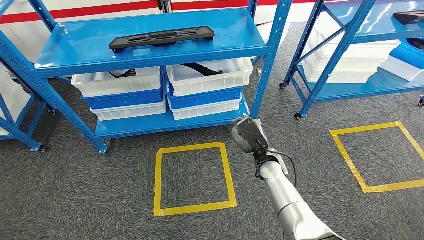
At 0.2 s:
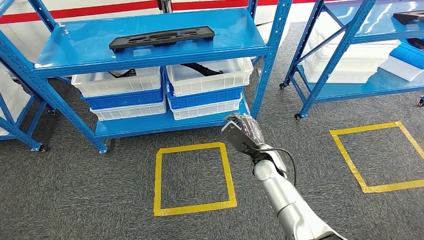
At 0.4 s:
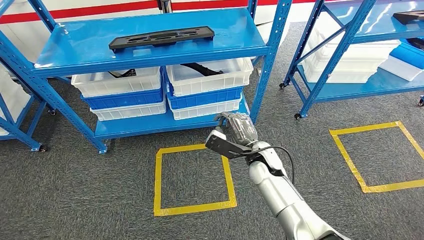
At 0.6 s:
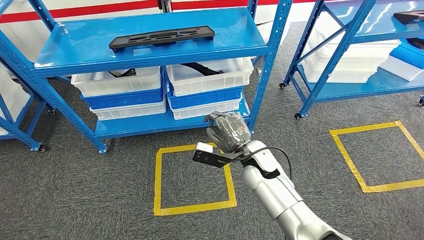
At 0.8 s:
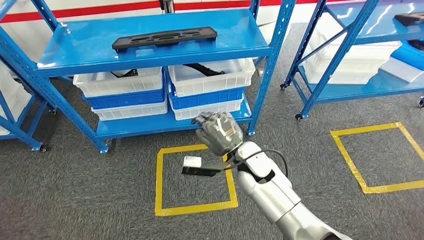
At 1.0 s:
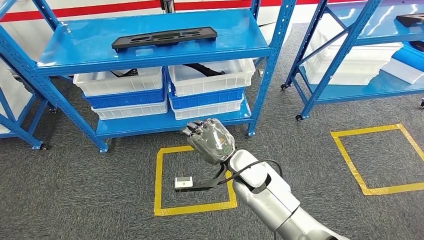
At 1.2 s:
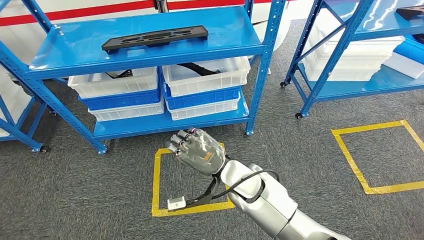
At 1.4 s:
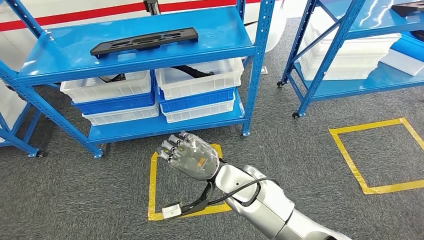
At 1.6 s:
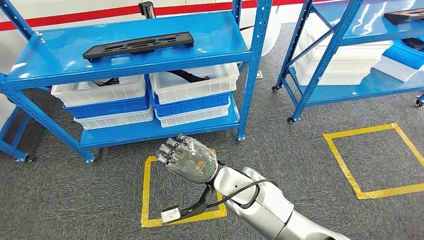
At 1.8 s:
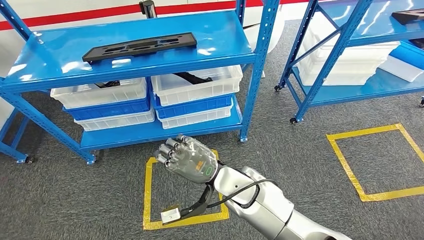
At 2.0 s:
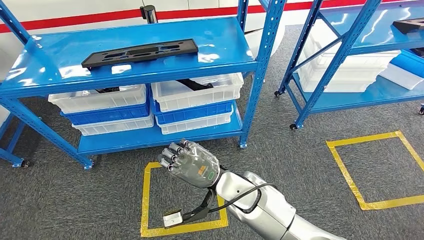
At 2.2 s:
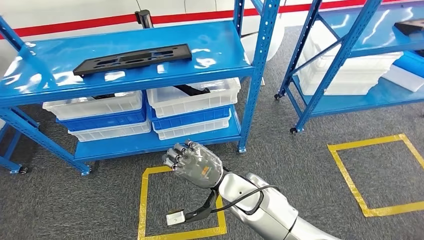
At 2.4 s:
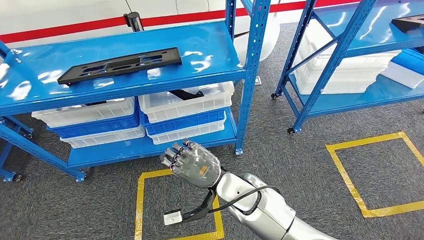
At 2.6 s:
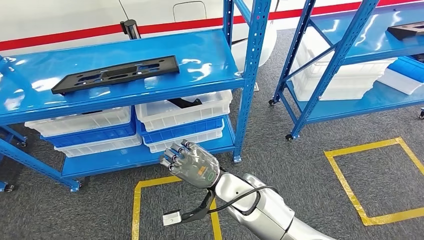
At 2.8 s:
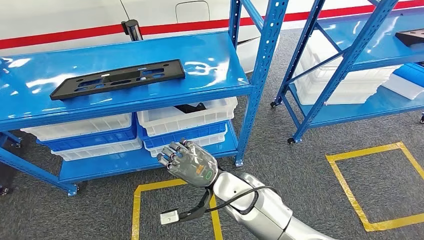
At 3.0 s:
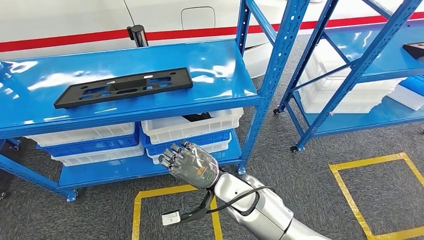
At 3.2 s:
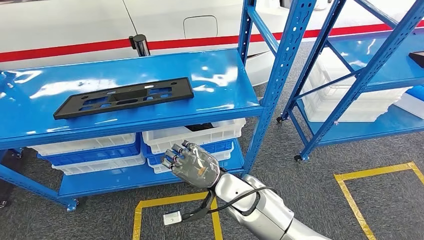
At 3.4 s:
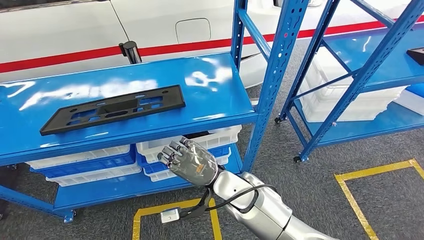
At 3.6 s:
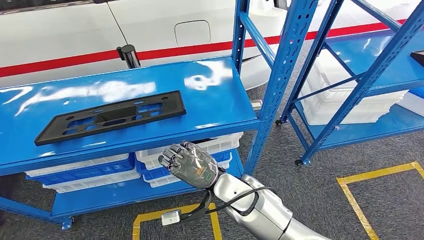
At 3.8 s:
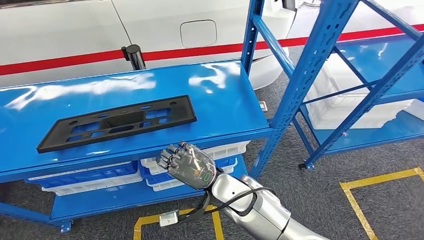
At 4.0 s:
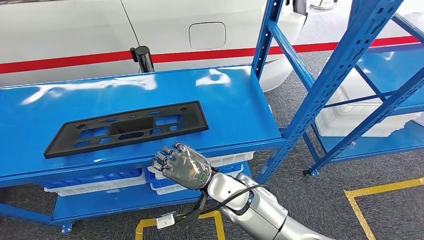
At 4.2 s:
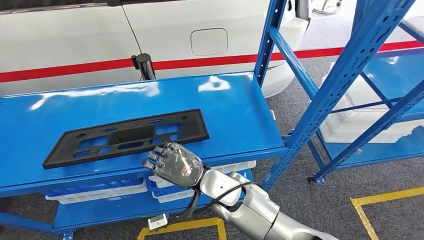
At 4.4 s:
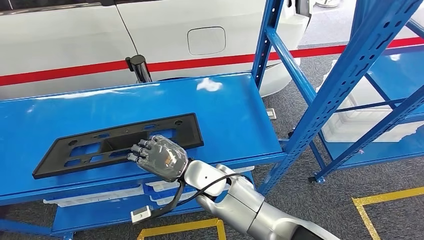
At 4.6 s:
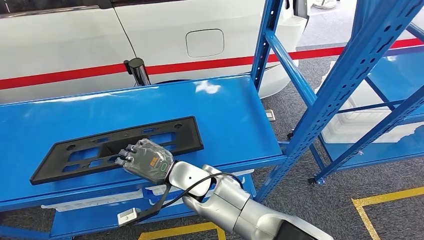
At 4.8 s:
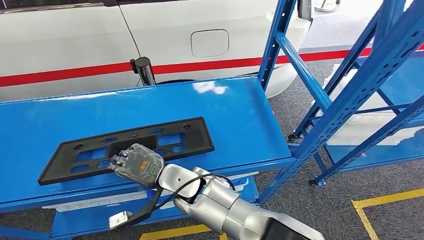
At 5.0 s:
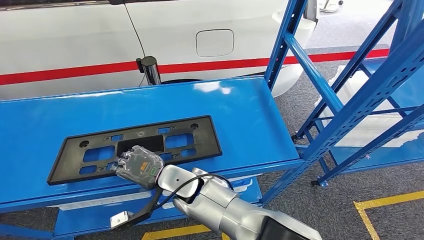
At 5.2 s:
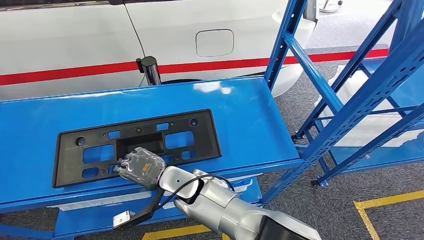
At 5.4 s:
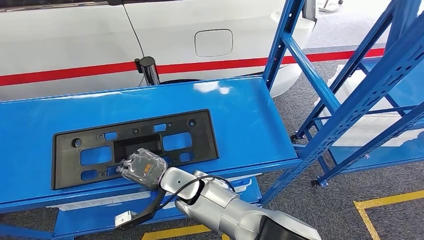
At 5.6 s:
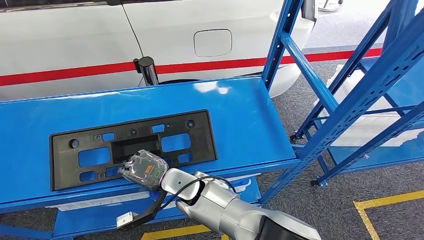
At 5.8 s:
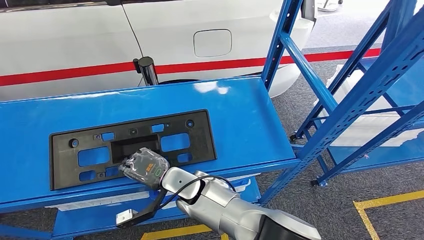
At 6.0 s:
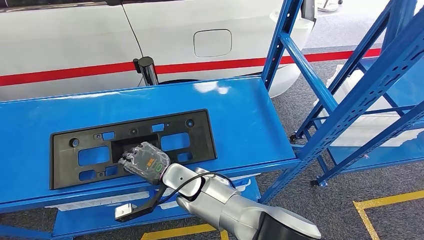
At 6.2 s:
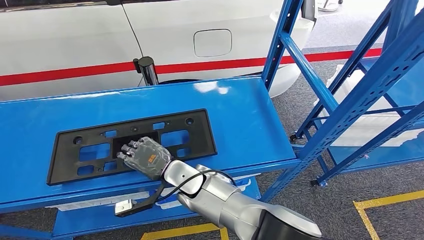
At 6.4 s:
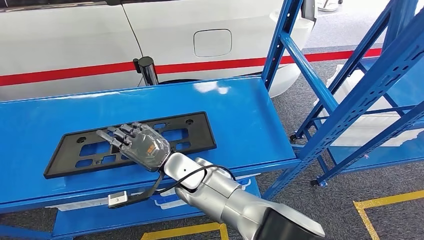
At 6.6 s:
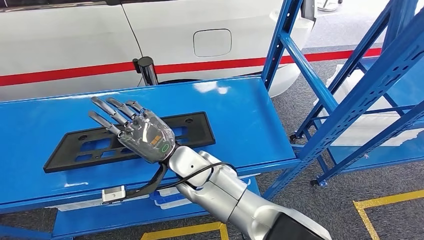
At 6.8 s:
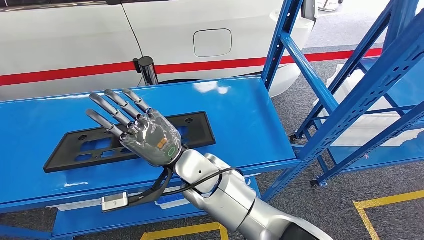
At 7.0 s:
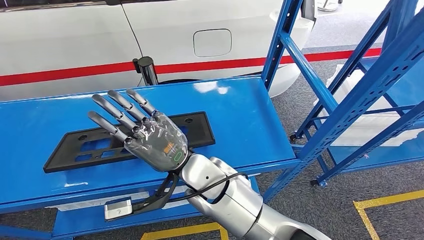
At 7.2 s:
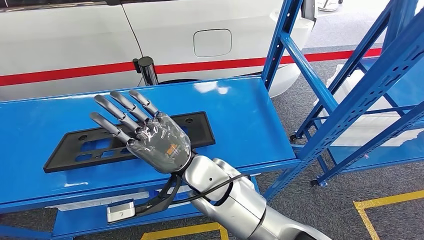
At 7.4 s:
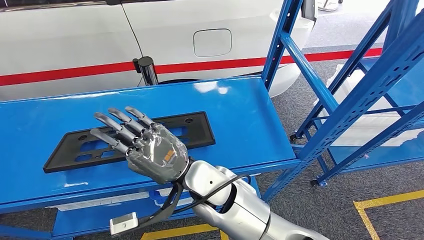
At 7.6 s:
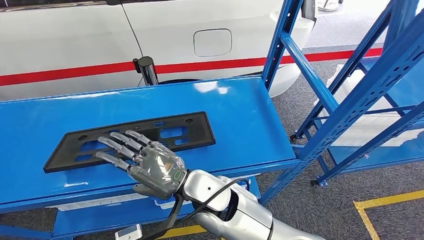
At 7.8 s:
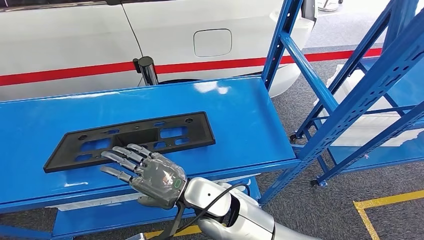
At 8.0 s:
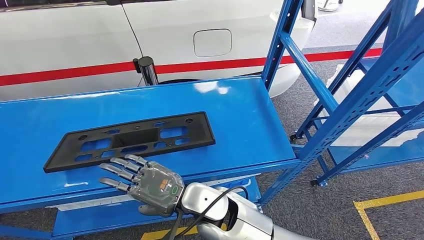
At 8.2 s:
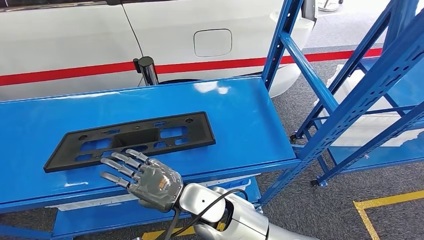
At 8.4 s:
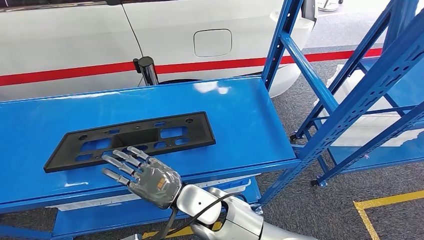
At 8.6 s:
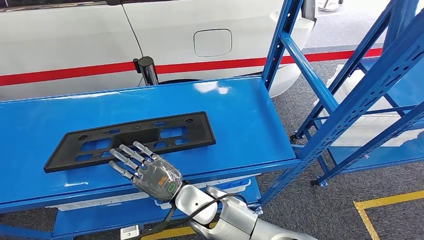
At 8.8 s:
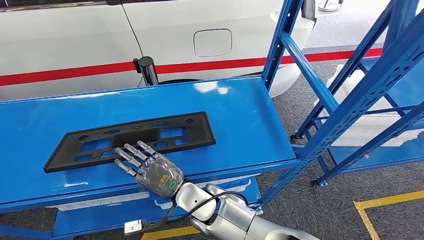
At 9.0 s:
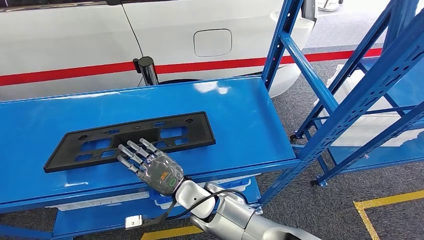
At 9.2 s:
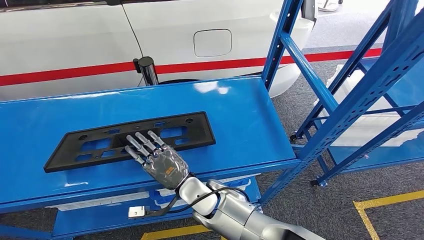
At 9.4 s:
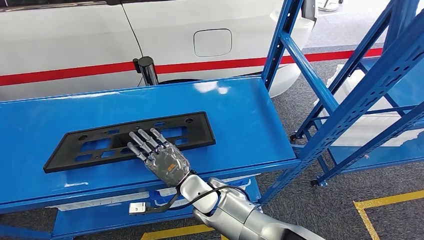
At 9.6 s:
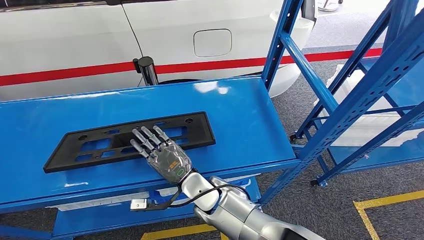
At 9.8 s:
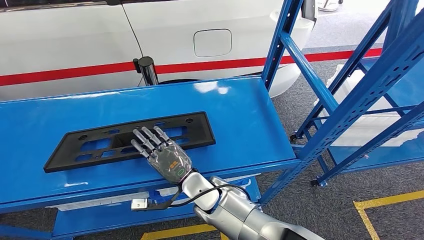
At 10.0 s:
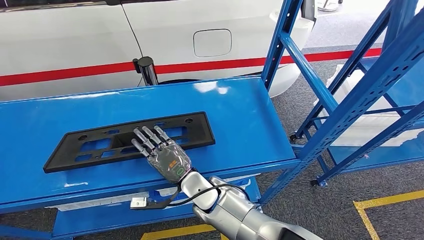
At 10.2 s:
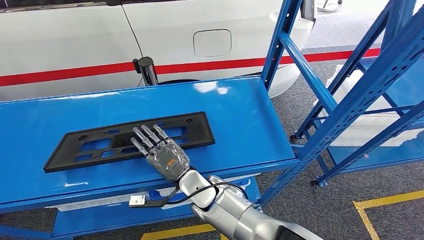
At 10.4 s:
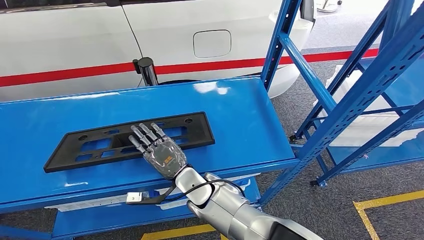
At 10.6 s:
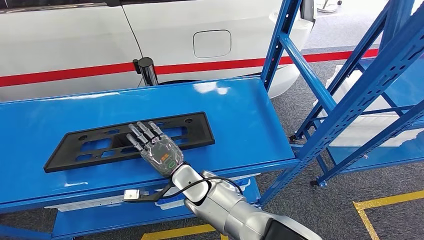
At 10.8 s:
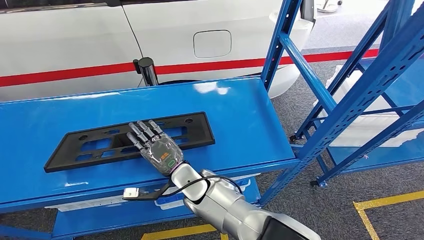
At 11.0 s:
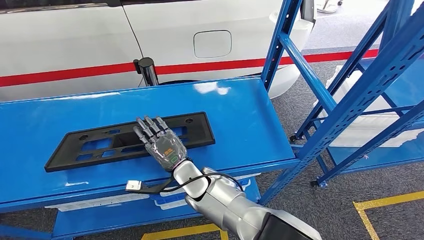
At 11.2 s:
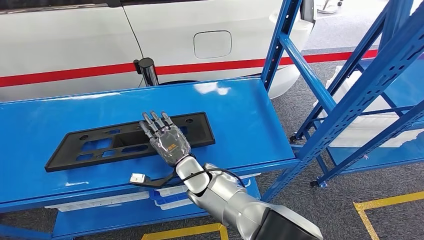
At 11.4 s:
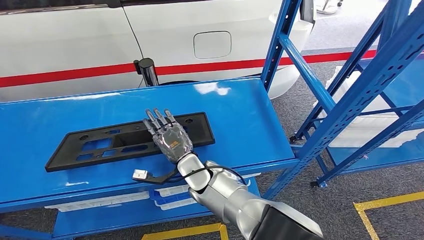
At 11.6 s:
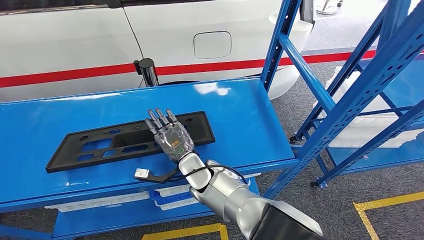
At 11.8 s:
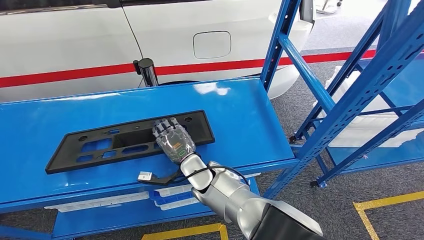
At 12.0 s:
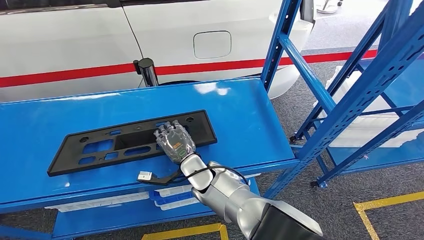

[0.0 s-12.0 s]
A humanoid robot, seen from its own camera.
6.0 to 7.6 s: The right hand is displaced upward, backward and to the right by some 10 cm.
7.6 to 9.0 s: The right hand heads downward, covering some 10 cm.
9.0 to 10.4 s: The hands stay close to where they were, moving slightly.
10.4 to 12.0 s: The hands make only small movements.

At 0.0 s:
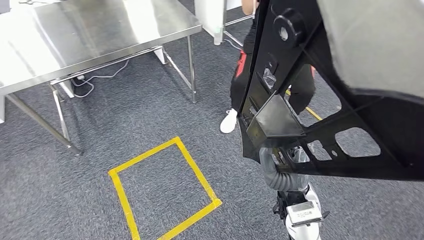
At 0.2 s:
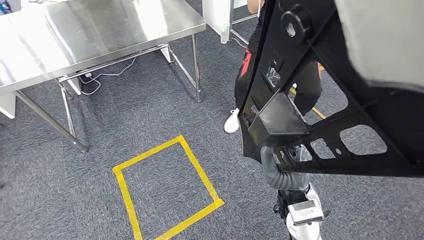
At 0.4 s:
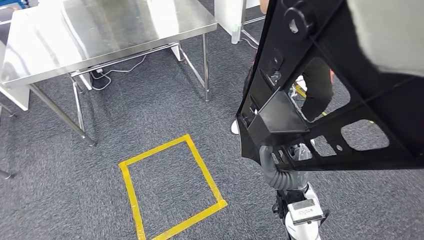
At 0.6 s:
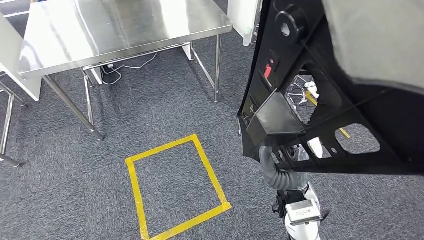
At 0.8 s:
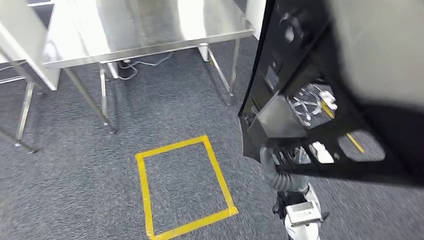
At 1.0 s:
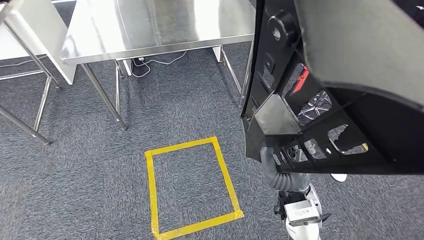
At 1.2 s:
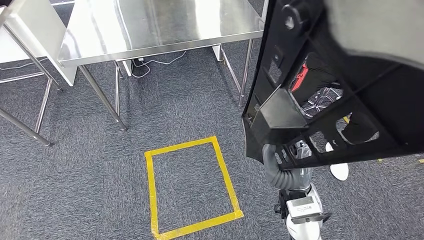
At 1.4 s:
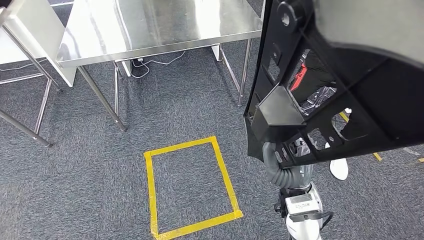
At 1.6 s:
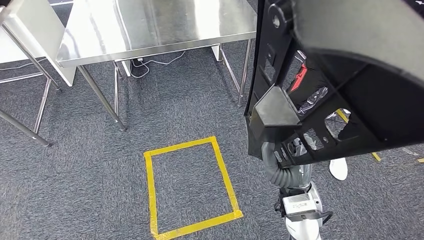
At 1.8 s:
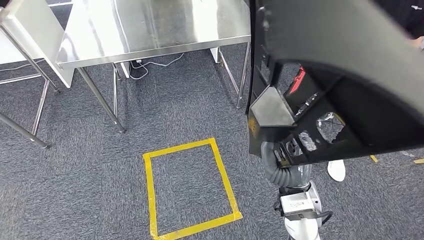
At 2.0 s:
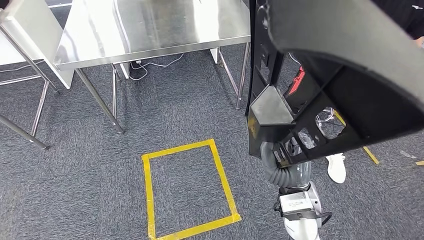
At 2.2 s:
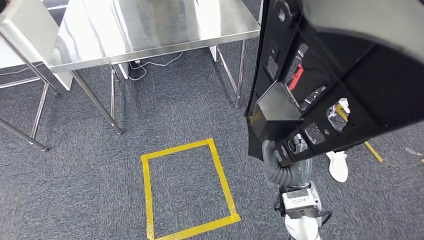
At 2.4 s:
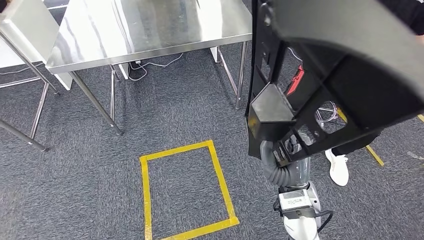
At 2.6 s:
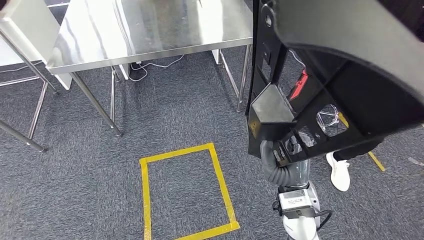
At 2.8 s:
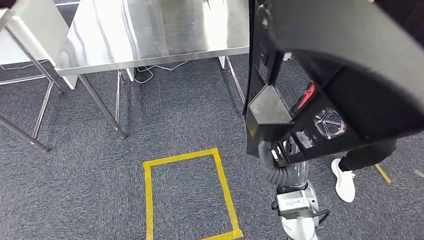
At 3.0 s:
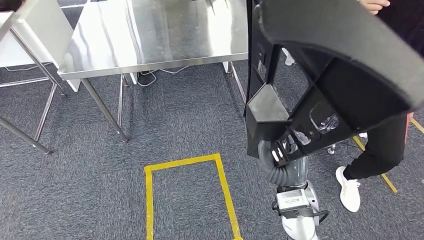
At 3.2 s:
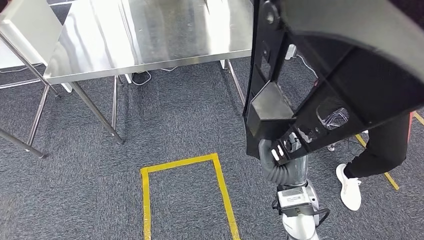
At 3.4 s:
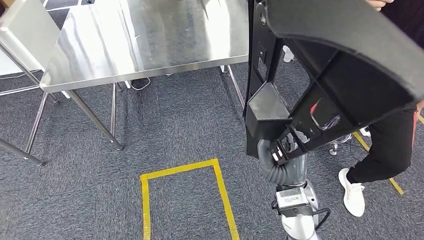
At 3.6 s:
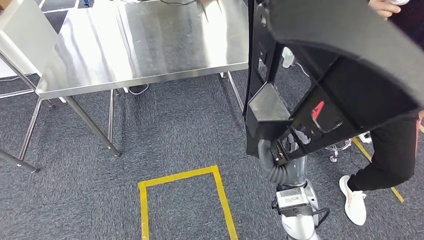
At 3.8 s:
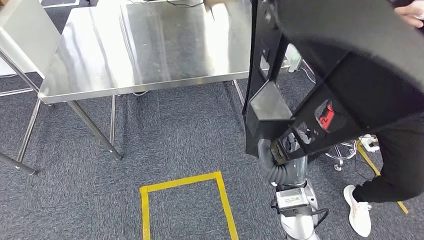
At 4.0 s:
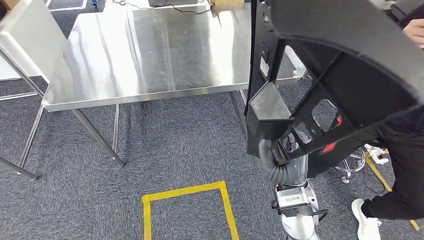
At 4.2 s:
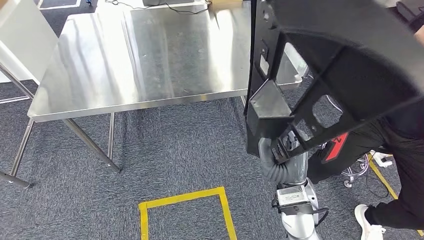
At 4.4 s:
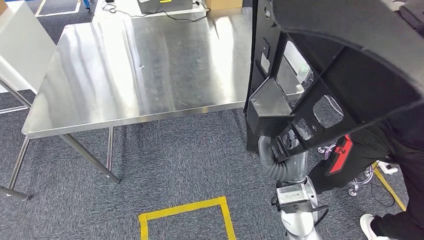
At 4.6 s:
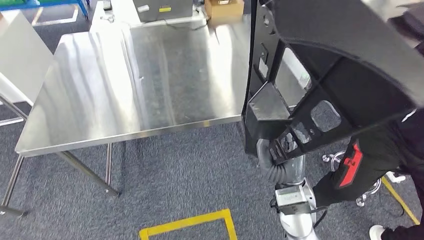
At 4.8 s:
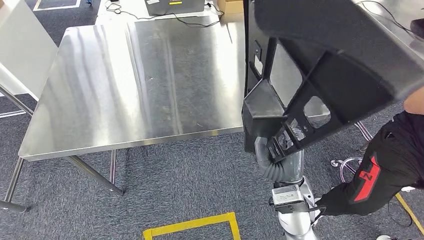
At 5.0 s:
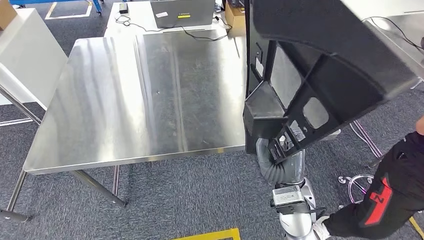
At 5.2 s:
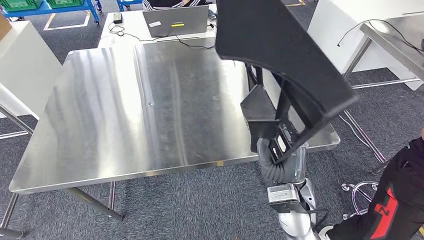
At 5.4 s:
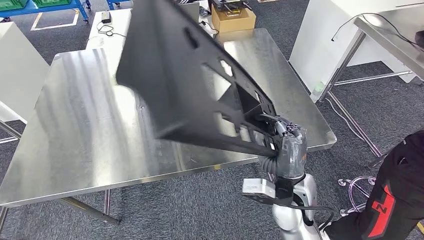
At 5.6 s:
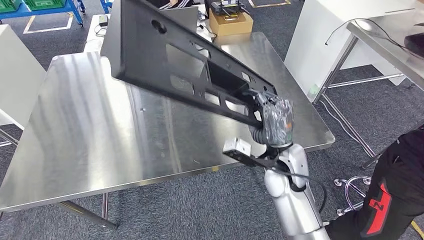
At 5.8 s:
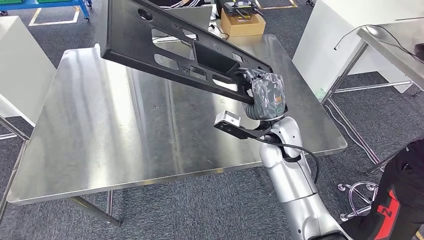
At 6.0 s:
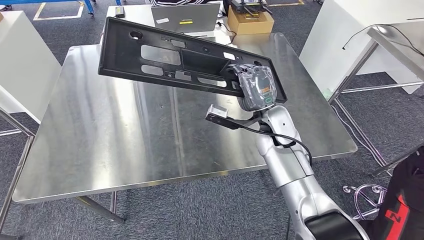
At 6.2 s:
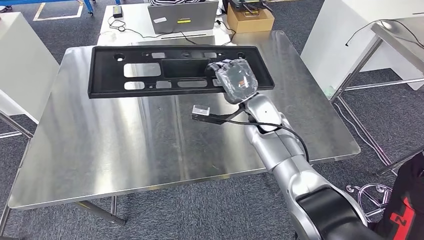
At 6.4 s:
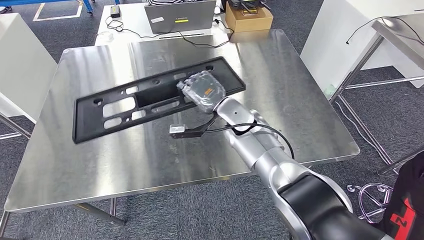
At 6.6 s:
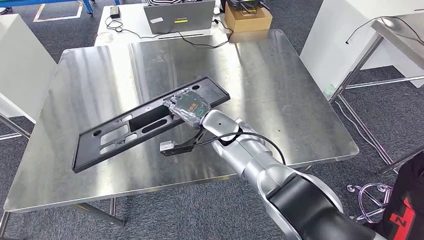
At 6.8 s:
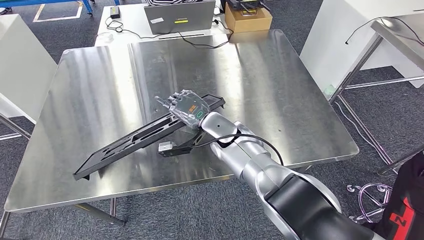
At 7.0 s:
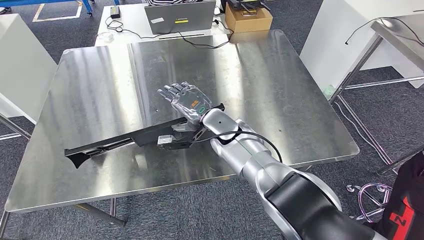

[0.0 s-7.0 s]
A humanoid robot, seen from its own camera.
Step, 0.0 to 6.2 s: Move the large material to the workbench.
